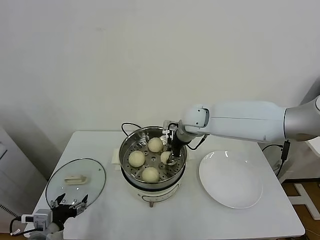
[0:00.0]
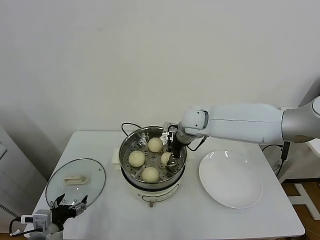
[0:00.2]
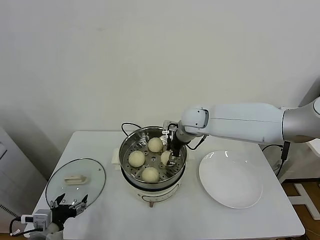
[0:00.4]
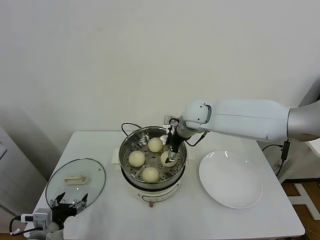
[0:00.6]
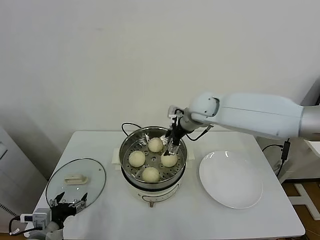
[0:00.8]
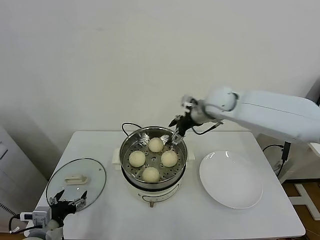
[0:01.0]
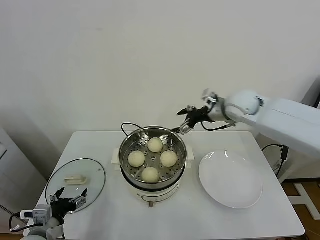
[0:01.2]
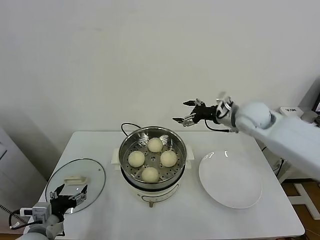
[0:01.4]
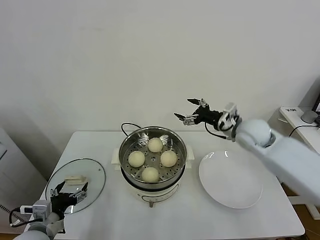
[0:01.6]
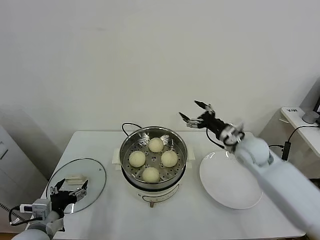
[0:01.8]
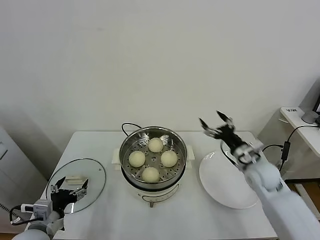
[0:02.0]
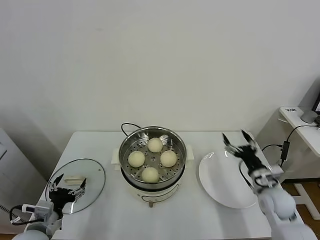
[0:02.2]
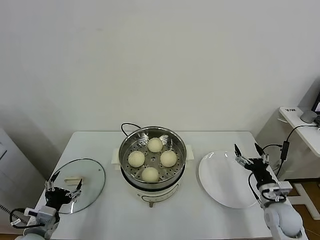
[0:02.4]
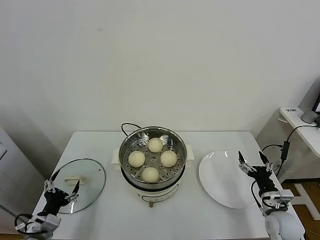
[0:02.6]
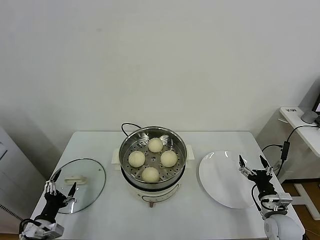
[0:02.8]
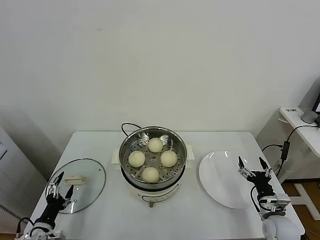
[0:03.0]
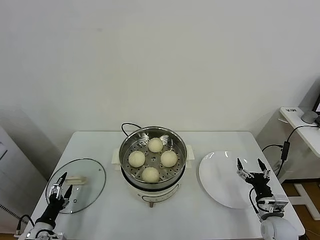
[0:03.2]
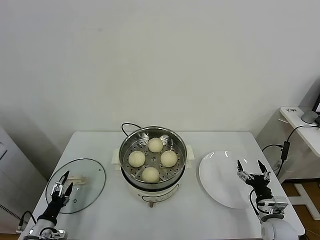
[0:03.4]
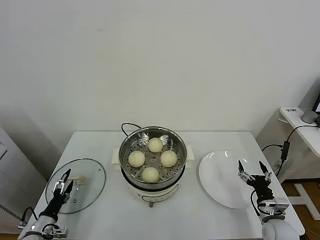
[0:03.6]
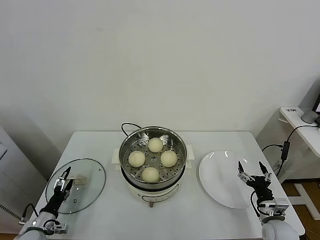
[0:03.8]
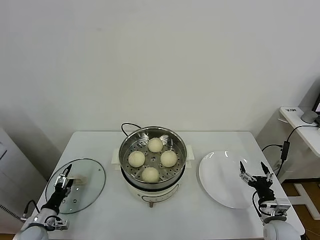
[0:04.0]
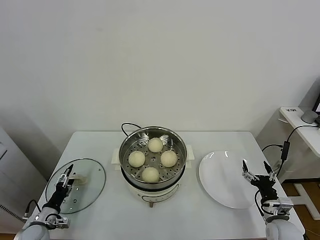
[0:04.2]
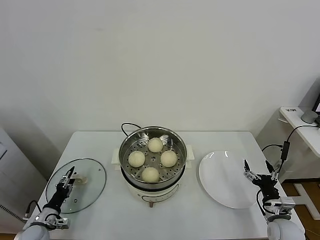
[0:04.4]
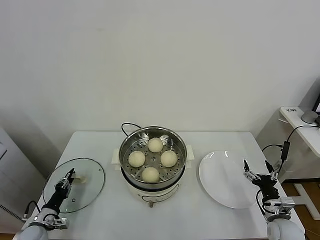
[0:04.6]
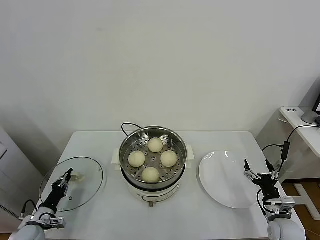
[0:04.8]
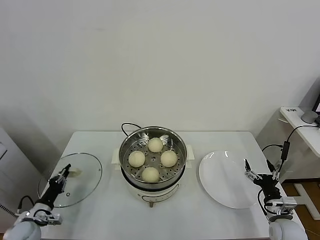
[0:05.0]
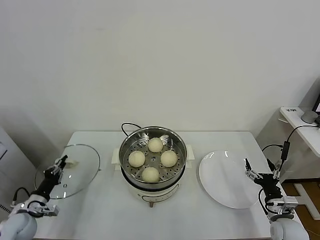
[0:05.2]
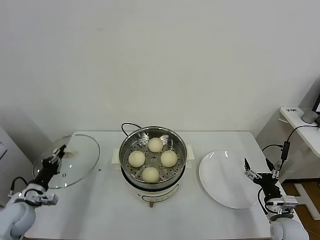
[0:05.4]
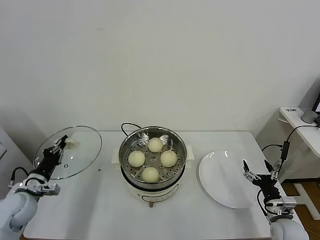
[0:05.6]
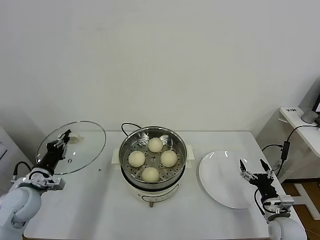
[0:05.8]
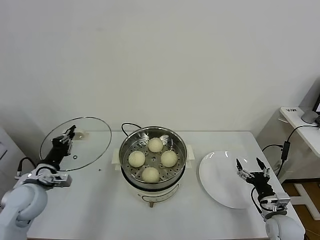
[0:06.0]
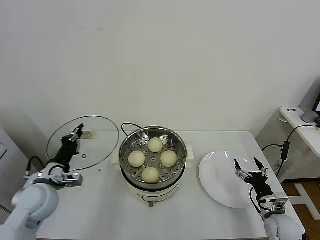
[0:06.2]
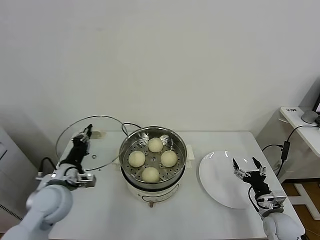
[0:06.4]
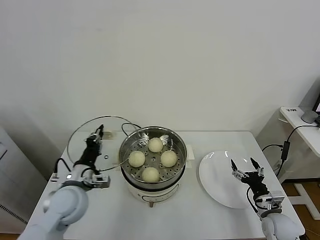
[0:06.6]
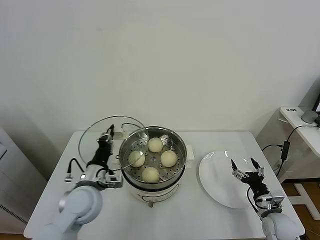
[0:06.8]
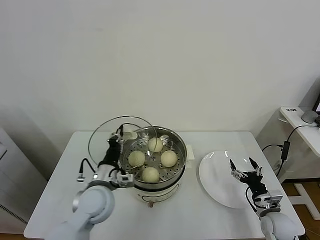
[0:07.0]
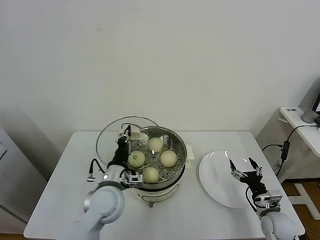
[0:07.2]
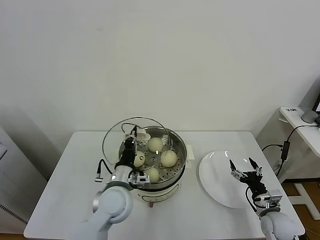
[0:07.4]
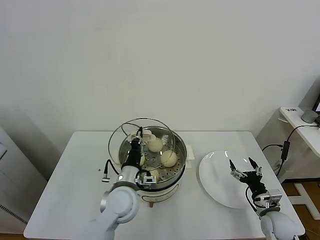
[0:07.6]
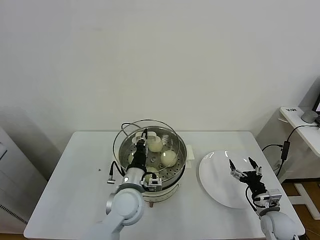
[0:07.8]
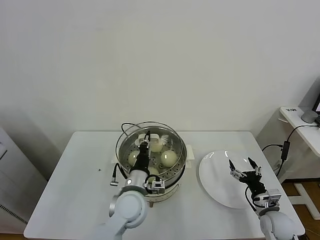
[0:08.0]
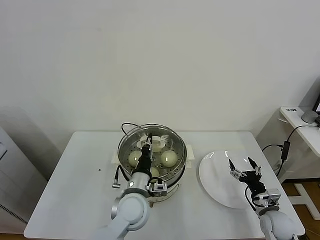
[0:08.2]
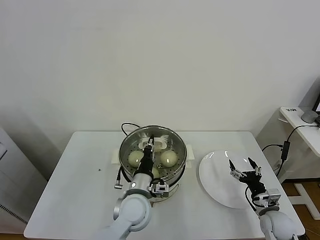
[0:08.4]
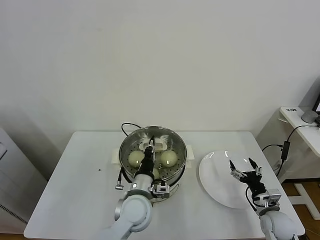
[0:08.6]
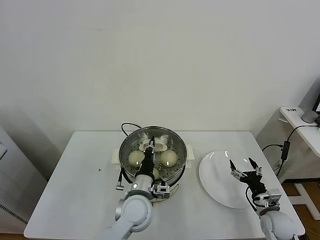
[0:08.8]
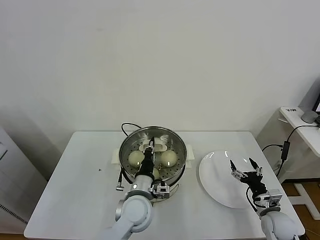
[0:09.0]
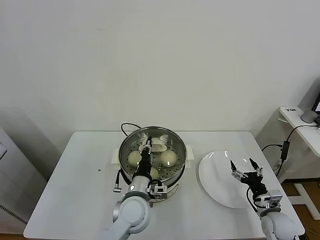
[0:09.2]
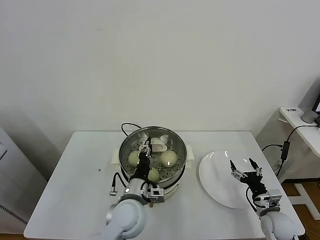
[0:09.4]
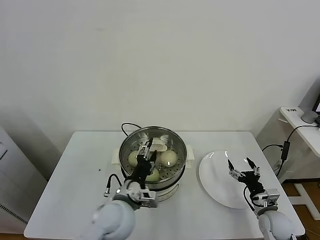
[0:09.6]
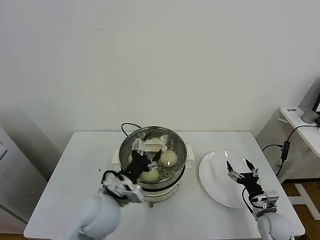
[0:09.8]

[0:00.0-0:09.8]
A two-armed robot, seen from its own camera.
Task of the whole recording: take steamed baozi put them in steamer.
Step, 0:01.0 to 0:04.8: Grasp the pot lid with left gripper.
0:00.0 to 0:01.4: The right gripper moves to the right, about 15 cm, and opens.
0:01.4 to 0:02.8: The right gripper travels downward, backward and to the right by some 40 cm, while the left gripper travels downward by approximately 5 cm.
0:02.8 to 0:04.2: The left gripper travels downward, forward and to the left by some 10 cm.
0:04.2 to 0:05.6: The left gripper shifts about 15 cm upward, and closes.
0:05.6 to 0:07.0: The left gripper moves to the right, approximately 25 cm.
0:07.0 to 0:08.4: The left gripper is displaced to the right by some 10 cm.
0:08.4 to 0:09.8: The left gripper heads to the left and upward, covering about 10 cm, and opens.

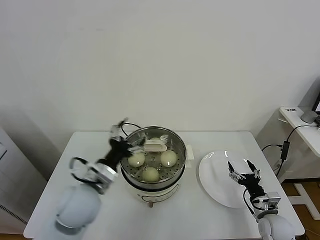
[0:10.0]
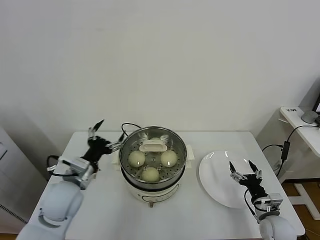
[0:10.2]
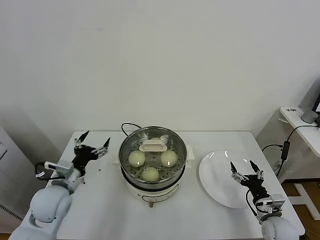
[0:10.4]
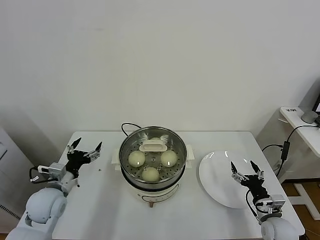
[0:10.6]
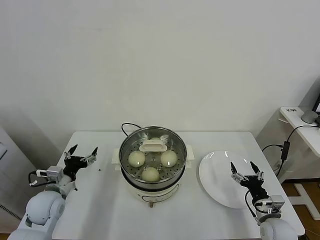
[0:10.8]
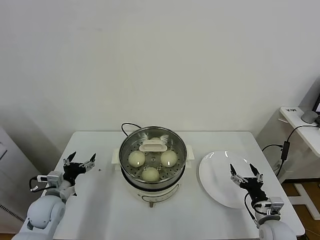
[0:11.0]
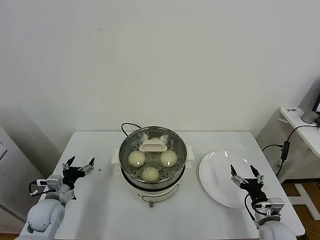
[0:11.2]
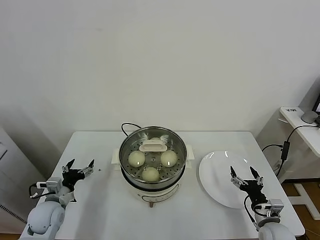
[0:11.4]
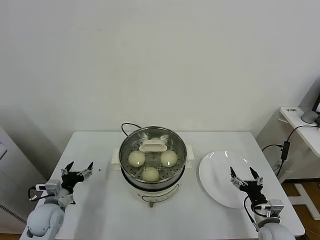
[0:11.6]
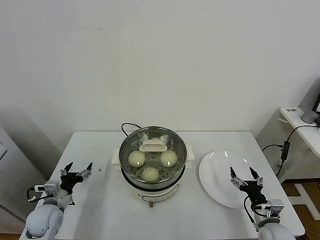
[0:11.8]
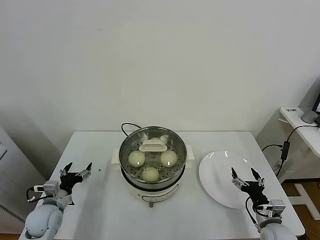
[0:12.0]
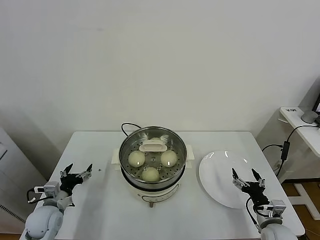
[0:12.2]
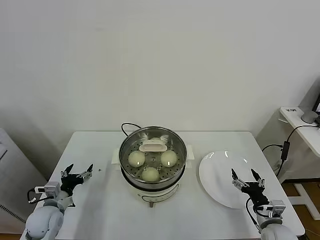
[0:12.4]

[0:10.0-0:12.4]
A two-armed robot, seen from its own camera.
Task of the whole recording: take steamed baozi put them in steamer.
0:10.0 to 0:11.2: The left gripper shifts some 25 cm to the left and downward.
0:11.2 to 0:12.4: The grippers move only a little.

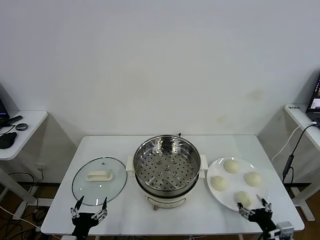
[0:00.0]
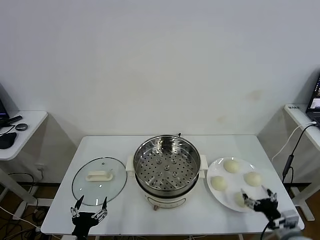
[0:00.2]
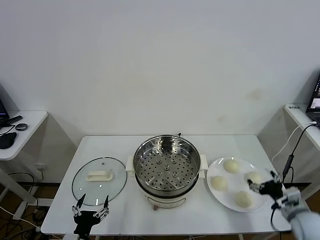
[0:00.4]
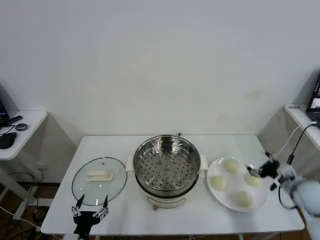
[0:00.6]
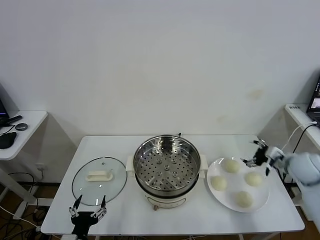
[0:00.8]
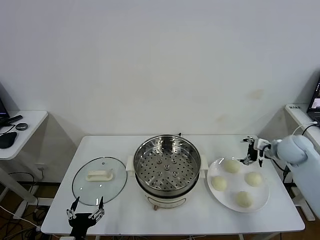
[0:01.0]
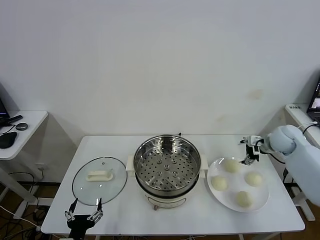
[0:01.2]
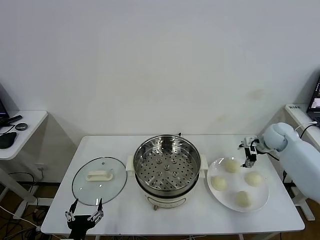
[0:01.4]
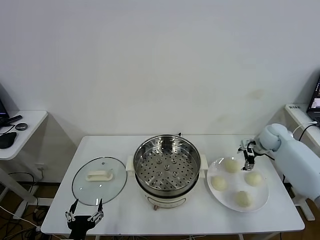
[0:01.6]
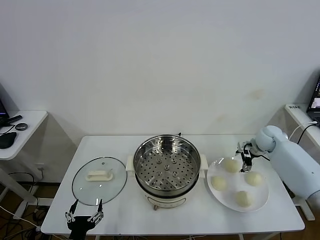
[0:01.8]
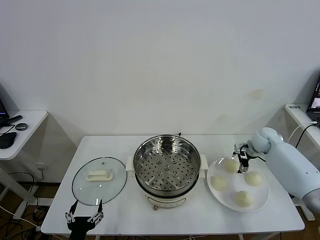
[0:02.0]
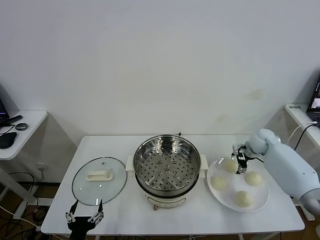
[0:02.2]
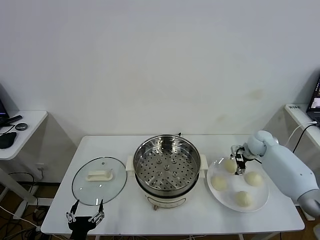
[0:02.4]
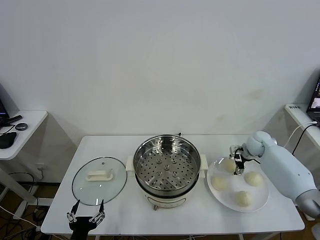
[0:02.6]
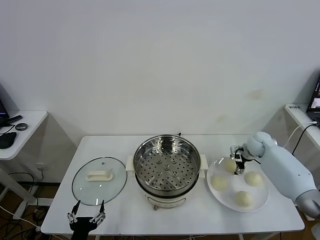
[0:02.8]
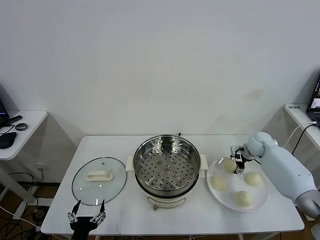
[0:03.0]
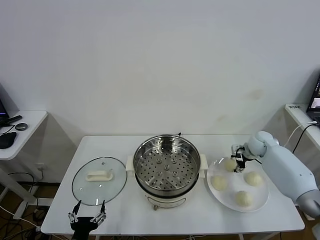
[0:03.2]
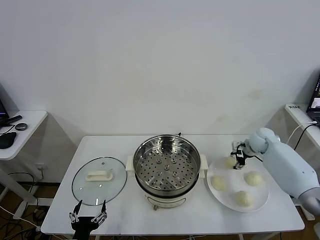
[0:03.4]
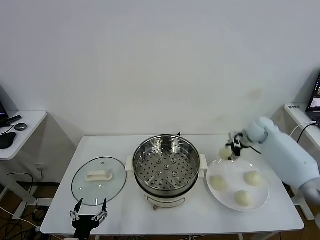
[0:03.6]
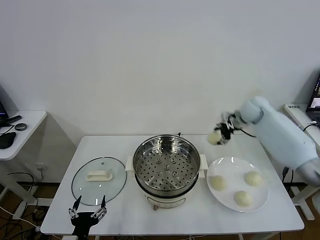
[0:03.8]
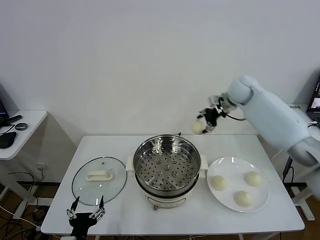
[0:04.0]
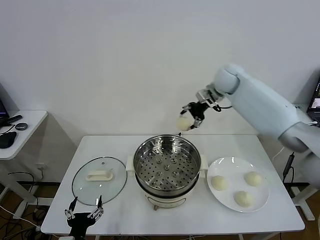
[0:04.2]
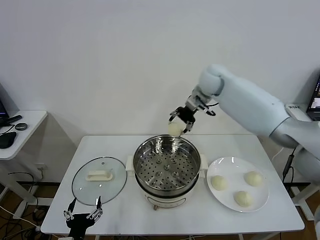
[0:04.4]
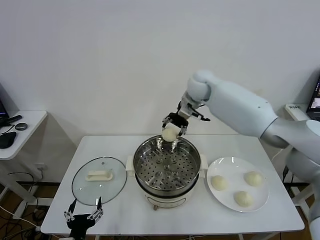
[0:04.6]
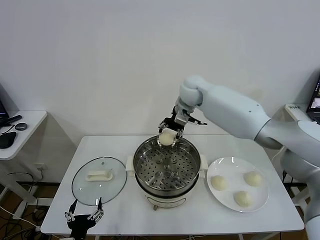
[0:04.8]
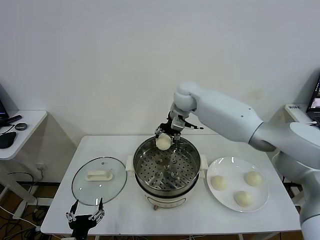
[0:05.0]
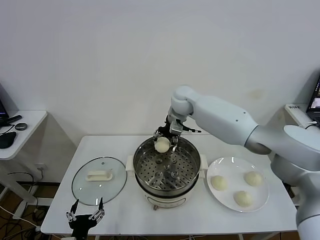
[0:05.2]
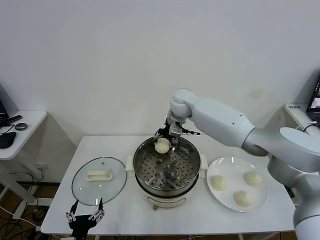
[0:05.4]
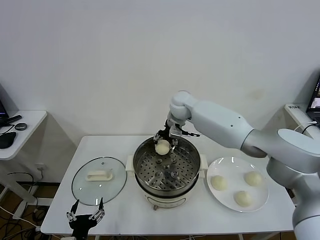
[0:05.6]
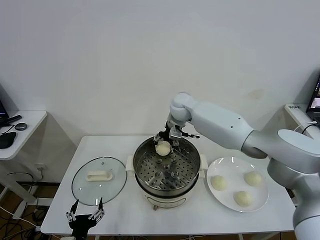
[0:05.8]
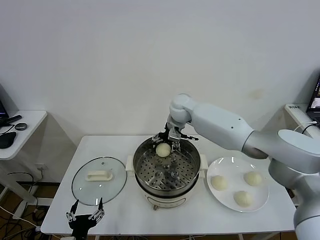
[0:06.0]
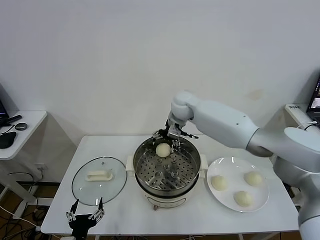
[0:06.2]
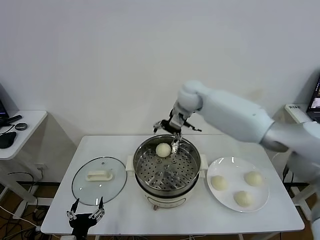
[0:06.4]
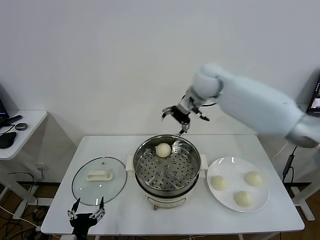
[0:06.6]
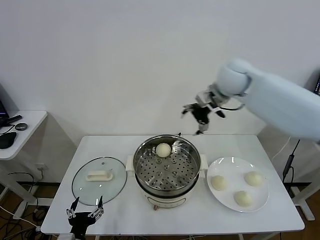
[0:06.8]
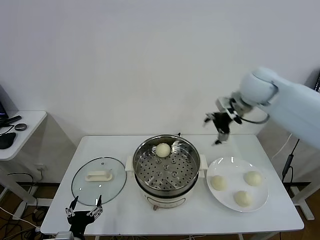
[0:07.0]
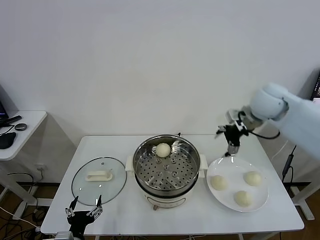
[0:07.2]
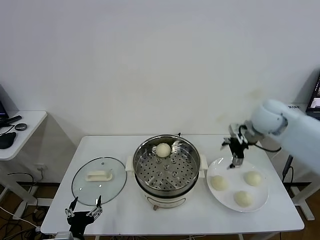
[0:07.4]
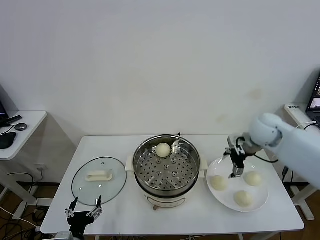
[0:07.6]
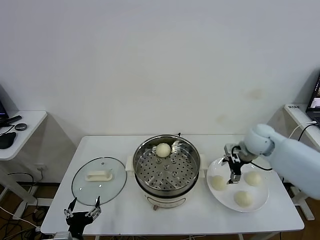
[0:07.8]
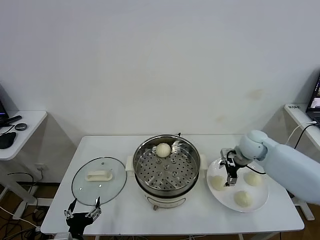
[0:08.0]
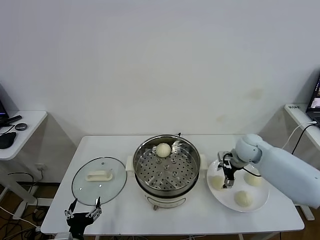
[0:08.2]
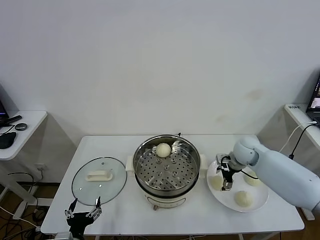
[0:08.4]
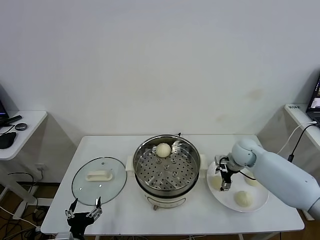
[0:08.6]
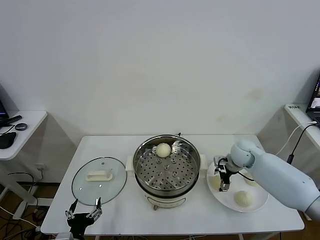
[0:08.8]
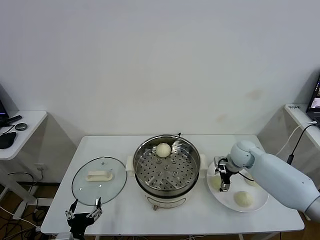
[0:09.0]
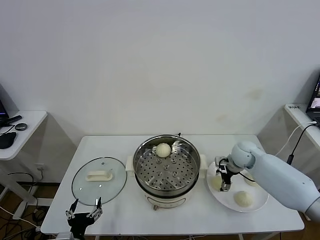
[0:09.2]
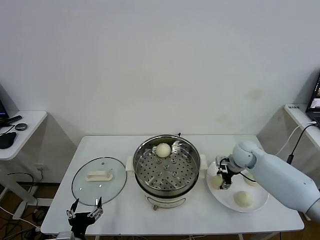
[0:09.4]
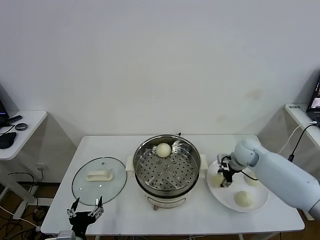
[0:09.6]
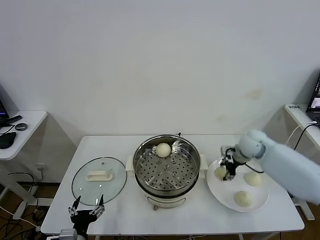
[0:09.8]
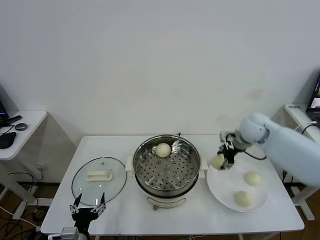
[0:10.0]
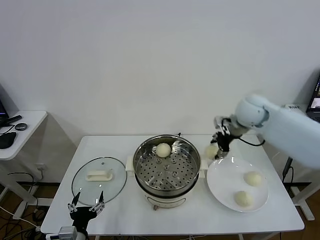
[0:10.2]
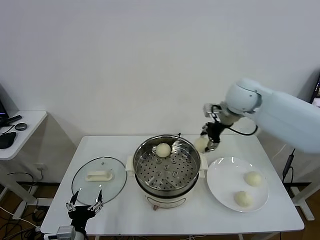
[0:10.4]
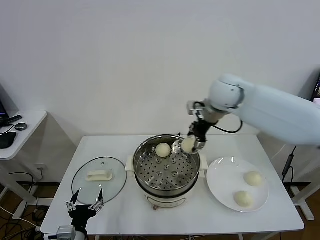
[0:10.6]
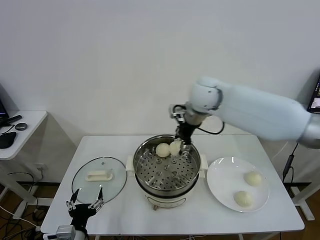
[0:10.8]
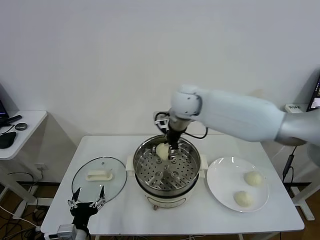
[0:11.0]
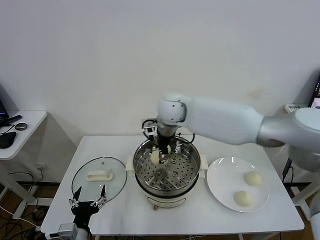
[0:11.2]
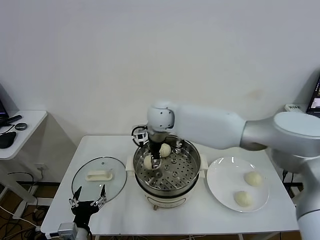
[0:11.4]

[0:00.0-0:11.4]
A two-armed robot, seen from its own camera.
Task of the whole recording: take steamed baozi put them in steamer.
Step, 0:00.0 to 0:03.0: Grasp the baozi in the plate with right gripper.
Step, 0:03.2 to 0:06.2: Place the baozi on the steamer with right gripper.
Step, 0:06.4 to 0:09.4: Grasp the baozi in the plate with right gripper.
0:01.4 to 0:02.8: The right gripper is displaced downward by roughly 5 cm.
0:02.8 to 0:04.2: The right gripper heads upward and to the left, covering about 35 cm, and closes.
0:04.2 to 0:05.6: The right gripper heads to the left and downward, covering approximately 15 cm.
0:05.6 to 0:07.2: The right gripper goes approximately 25 cm to the right and backward, and opens its fingers.
0:07.2 to 0:08.6: The right gripper heads downward, covering about 20 cm.
0:08.6 to 0:10.0: The right gripper heads upward, covering approximately 15 cm, and closes its fingers.
0:10.0 to 0:11.4: The right gripper heads to the left, covering some 30 cm.
